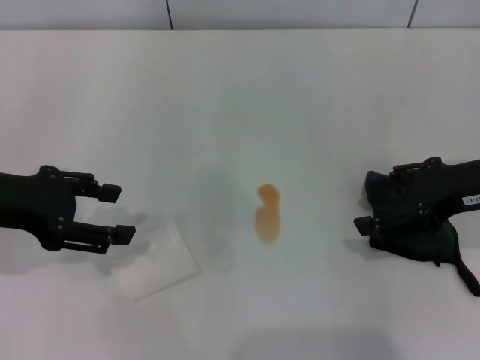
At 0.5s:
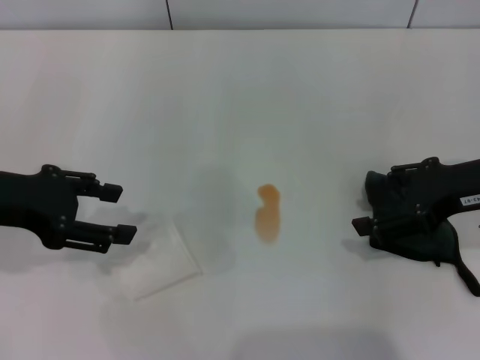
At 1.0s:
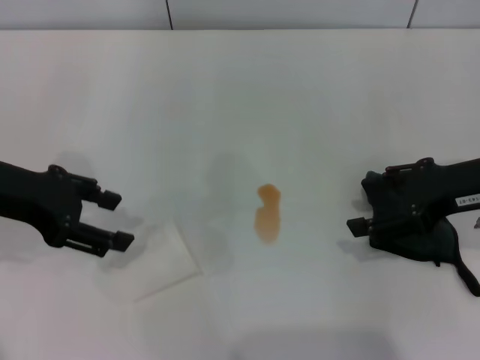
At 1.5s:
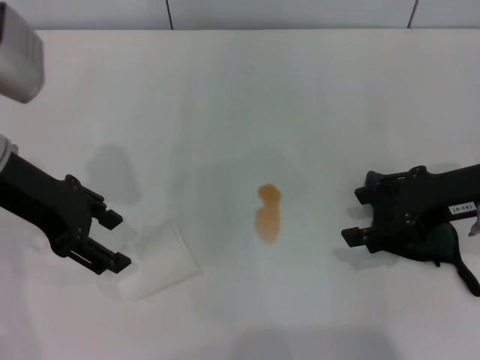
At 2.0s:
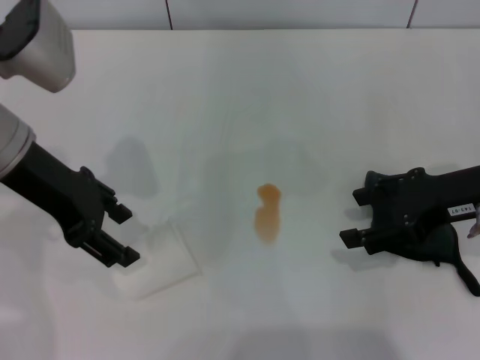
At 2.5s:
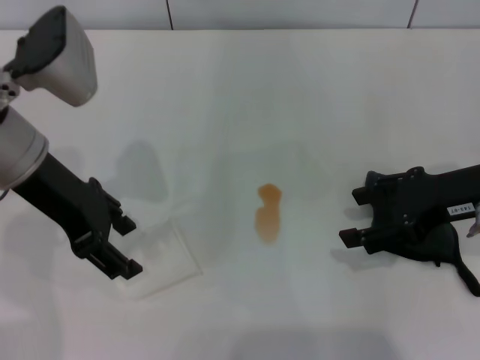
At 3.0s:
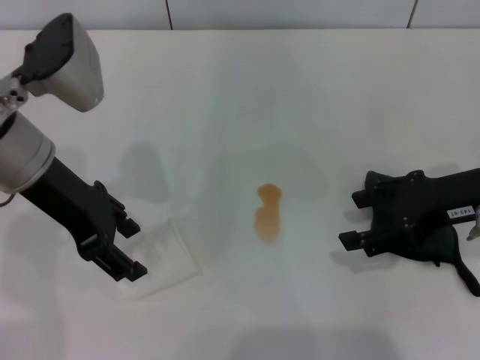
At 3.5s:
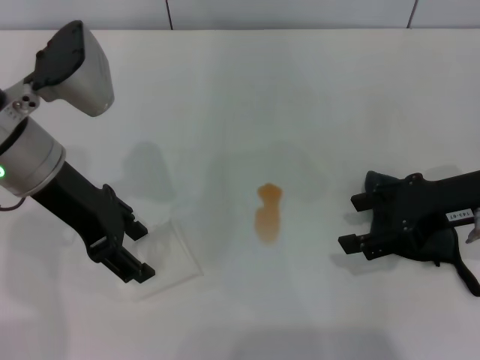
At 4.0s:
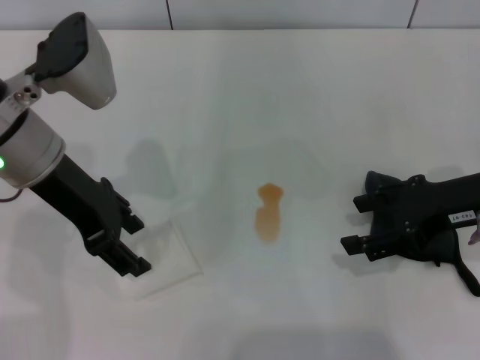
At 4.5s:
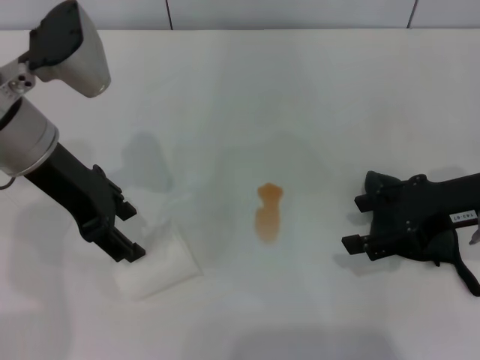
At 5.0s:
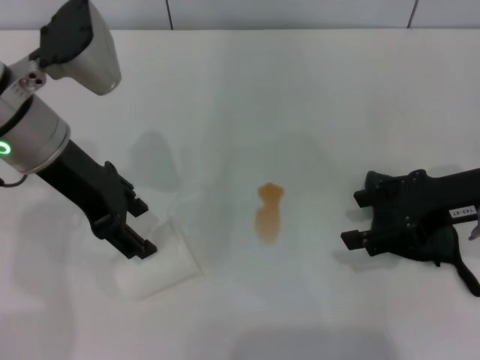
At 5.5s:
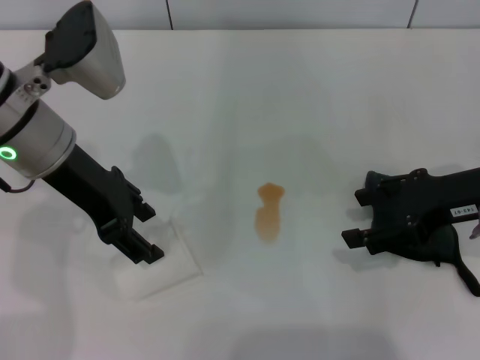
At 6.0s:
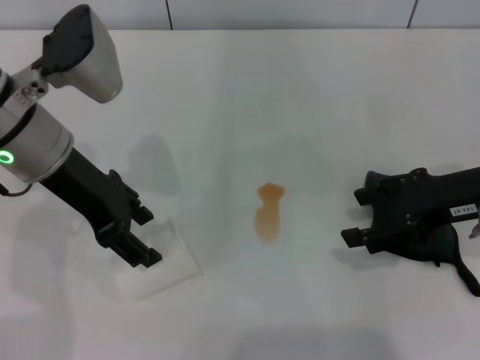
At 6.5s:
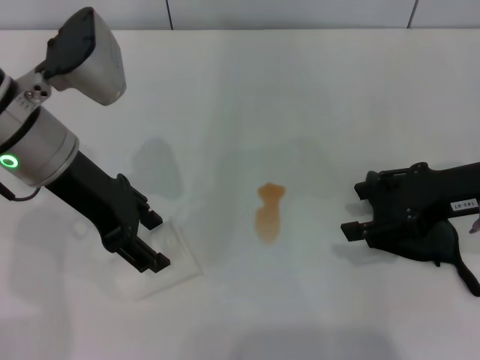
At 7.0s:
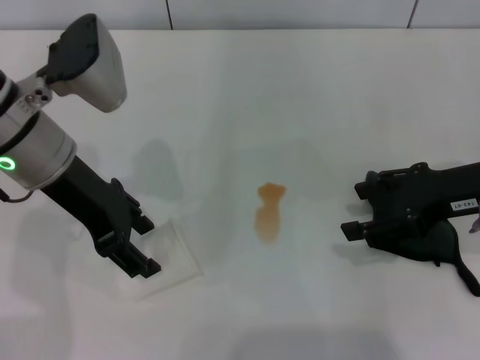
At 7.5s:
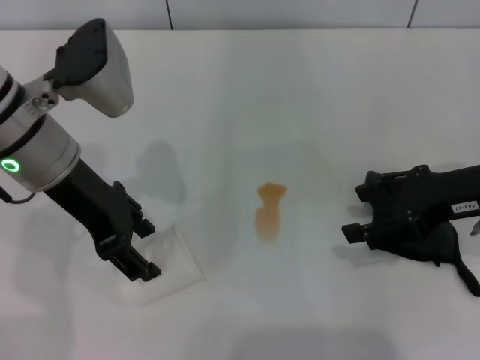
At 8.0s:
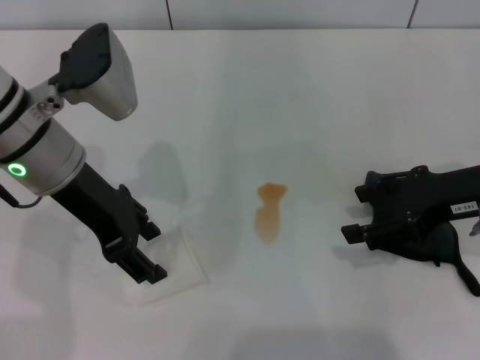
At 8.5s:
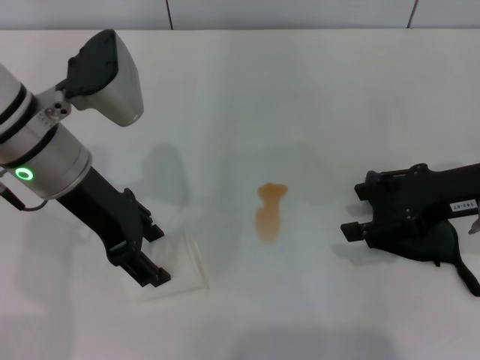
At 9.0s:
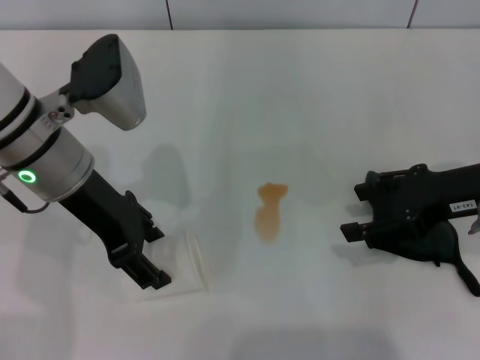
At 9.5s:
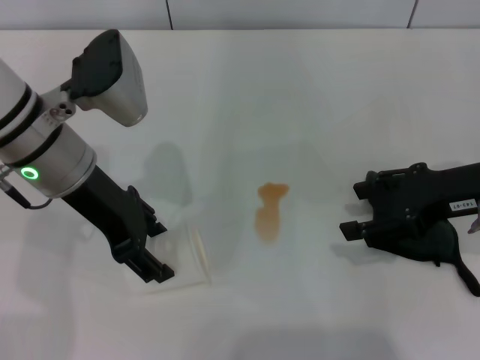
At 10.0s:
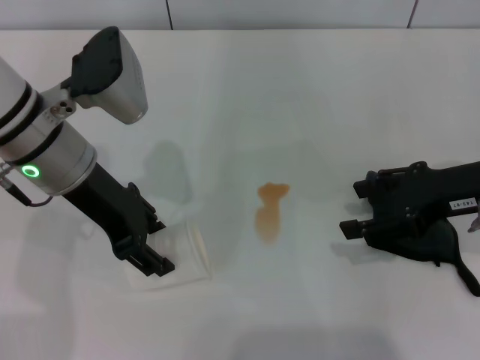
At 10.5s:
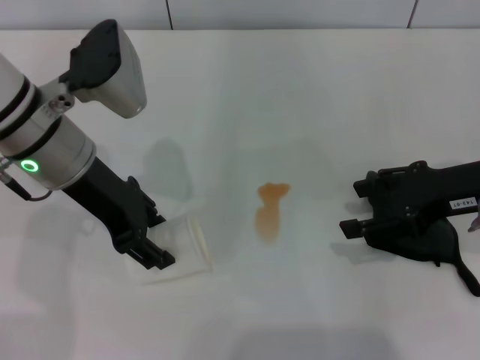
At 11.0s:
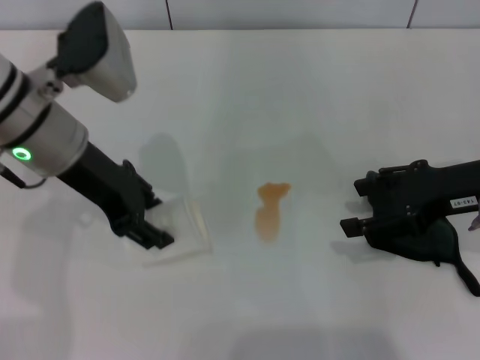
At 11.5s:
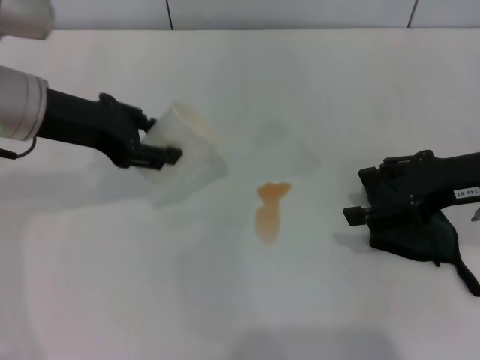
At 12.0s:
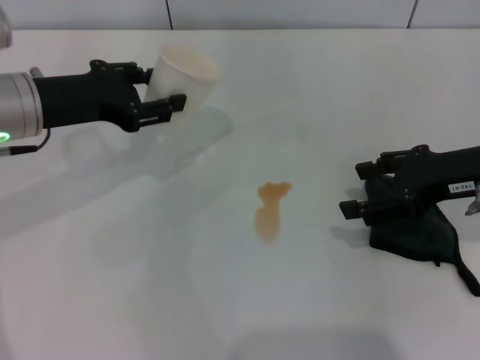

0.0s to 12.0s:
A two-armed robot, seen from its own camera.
Step, 0.0s to 10.0s: Grasp the paper cup with the left gripper.
0.0s to 2.0s: The left gripper goes roughly 5 cm to the right.
2.0s to 4.0s: The grippers stay close to where they were, moving slightly.
4.0s to 6.0s: Both grippers stay put.
6.0s to 8.0s: The two grippers keep their place.
8.0s to 10.0s: Both grippers stay about where they are.
10.0s to 12.0s: The left gripper shifts approximately 5 cm to the left.

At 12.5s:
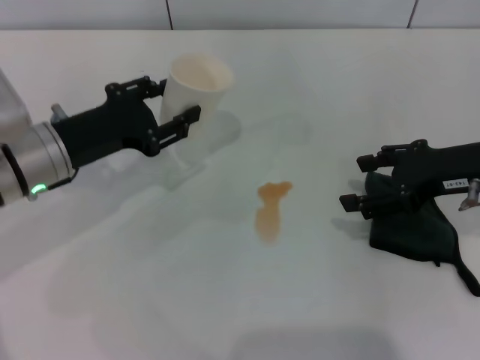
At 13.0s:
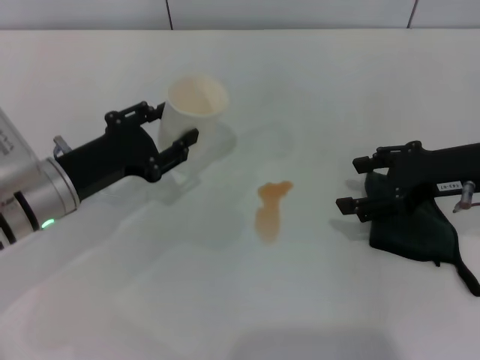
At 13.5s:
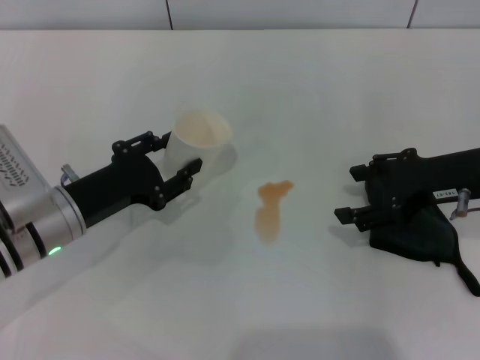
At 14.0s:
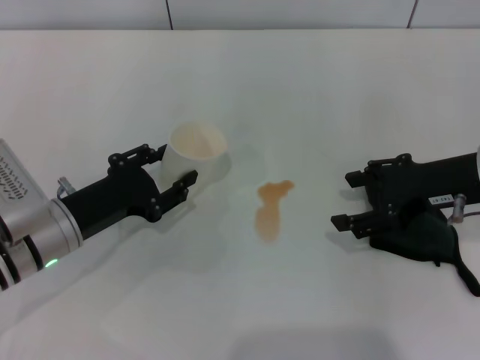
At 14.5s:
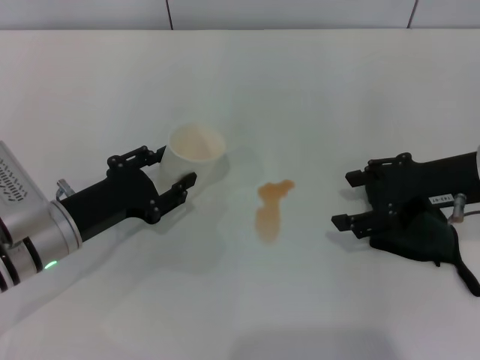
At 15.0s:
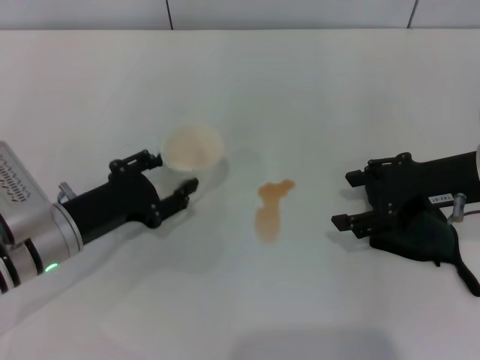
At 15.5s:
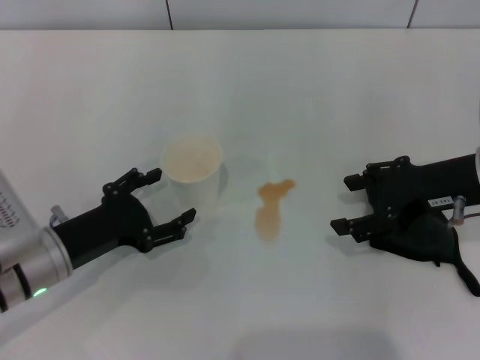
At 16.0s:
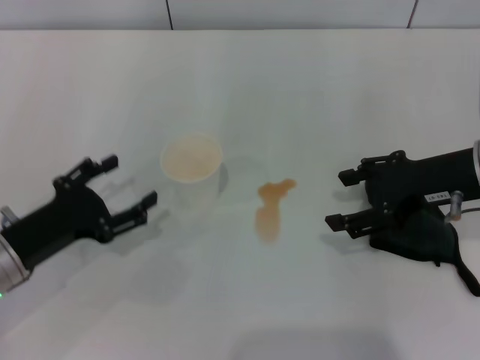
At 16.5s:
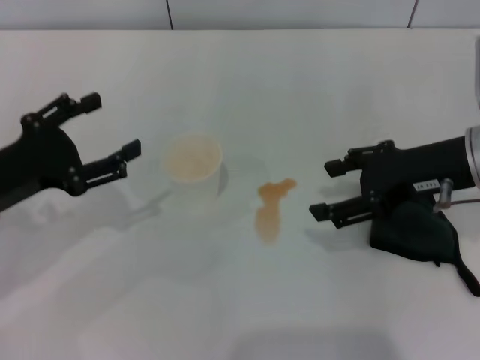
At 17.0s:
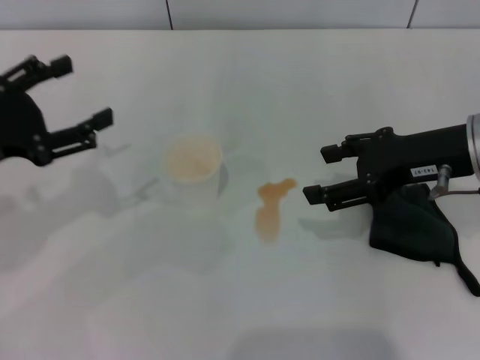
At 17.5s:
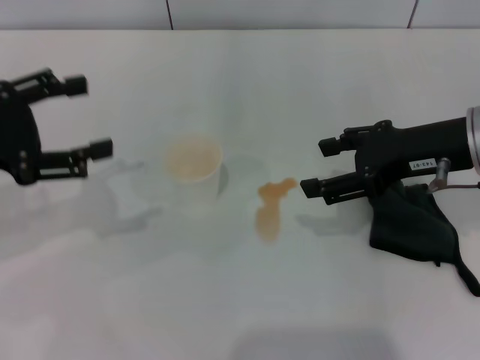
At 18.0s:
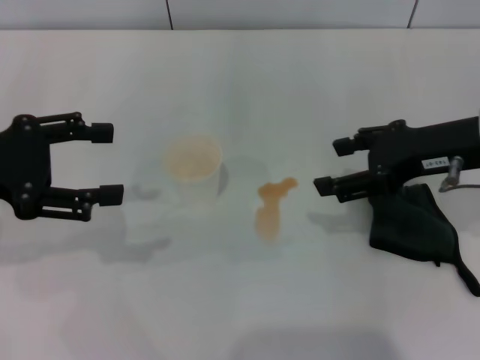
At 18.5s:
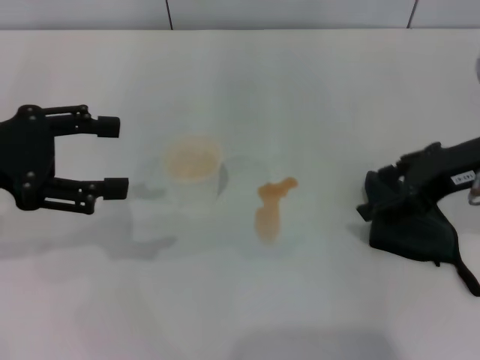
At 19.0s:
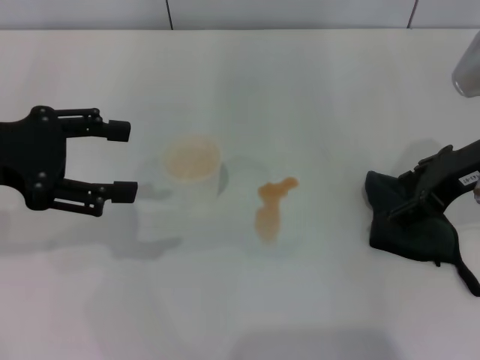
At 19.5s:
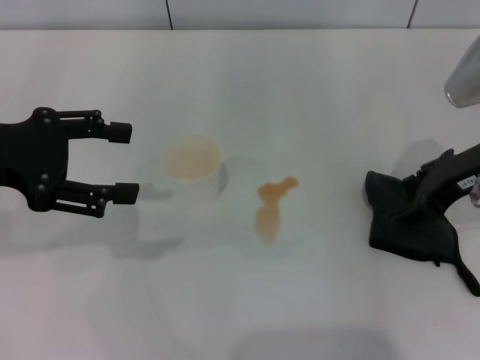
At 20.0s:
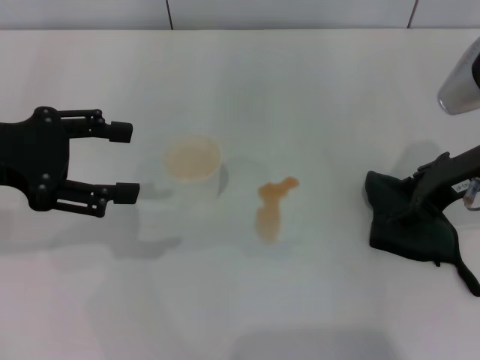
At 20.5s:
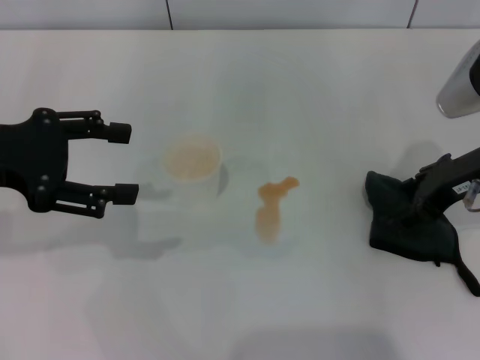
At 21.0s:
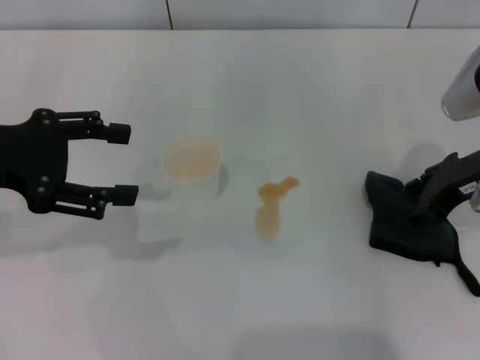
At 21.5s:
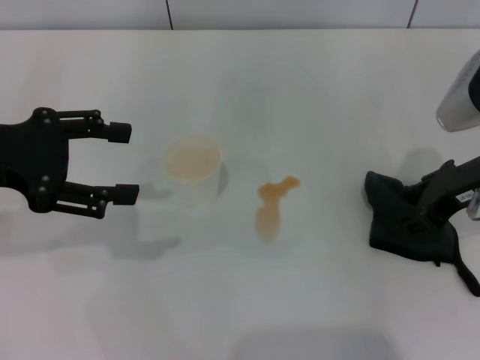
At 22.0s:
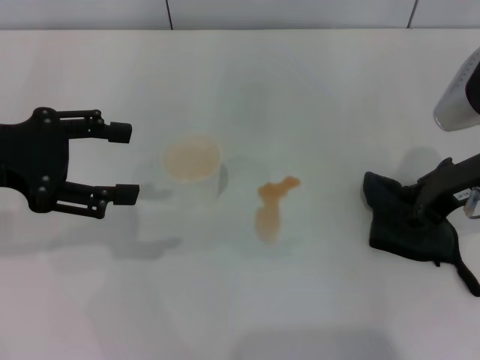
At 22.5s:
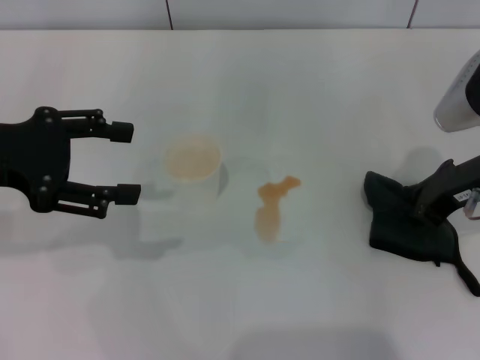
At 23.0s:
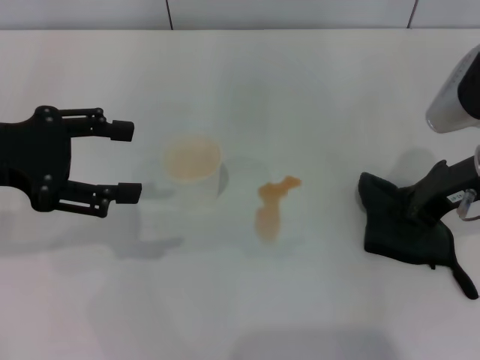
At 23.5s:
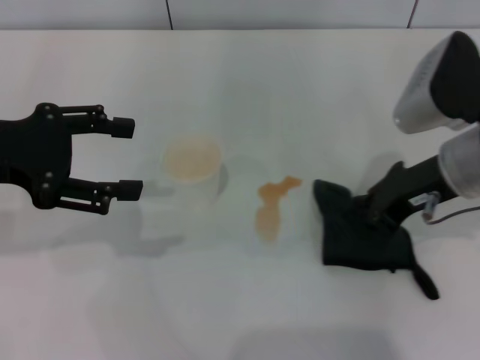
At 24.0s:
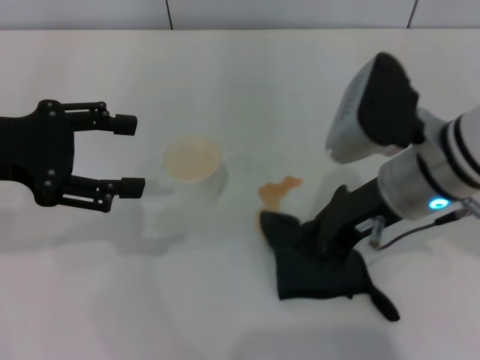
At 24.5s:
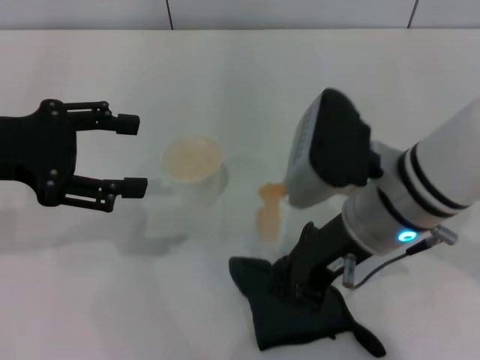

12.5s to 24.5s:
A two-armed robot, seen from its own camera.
Step, 12.5s to 15.5s: Stand the paper cup upright with the left gripper.
Step, 16.0s to 22.5s: Grasp the rag with the right gripper.
12.5s to 14.5s: The left gripper is displaced downward and backward by about 10 cm.
14.5s to 16.5s: The left gripper is displaced upward and to the left by roughly 10 cm, and opens.
16.5s to 18.5s: The left gripper is displaced upward by approximately 10 cm.
18.5s to 20.5s: The grippers move only a little.
20.5s to 22.5s: The right gripper closes its fingers.
22.5s to 24.5s: The right gripper moves to the left, some 15 cm.

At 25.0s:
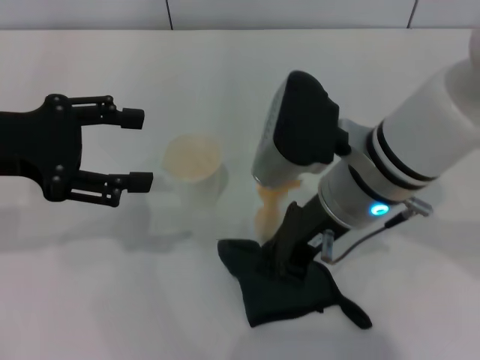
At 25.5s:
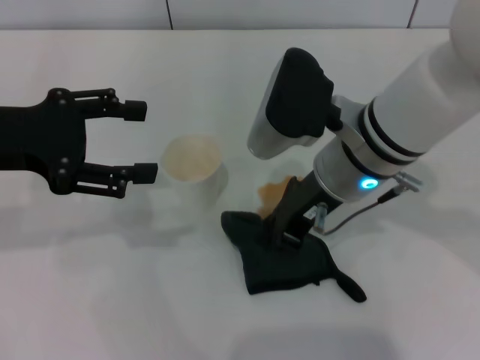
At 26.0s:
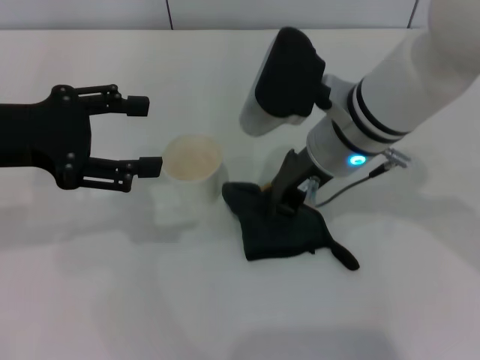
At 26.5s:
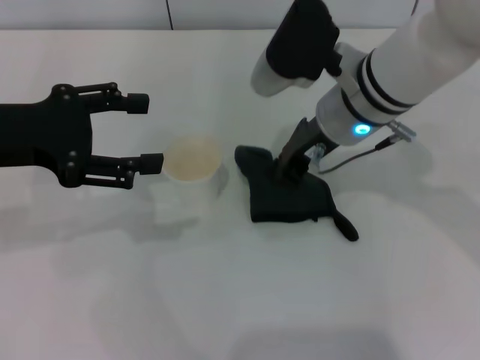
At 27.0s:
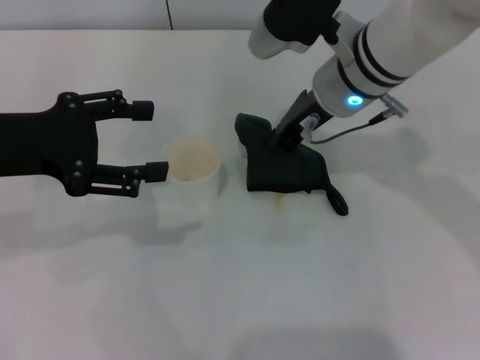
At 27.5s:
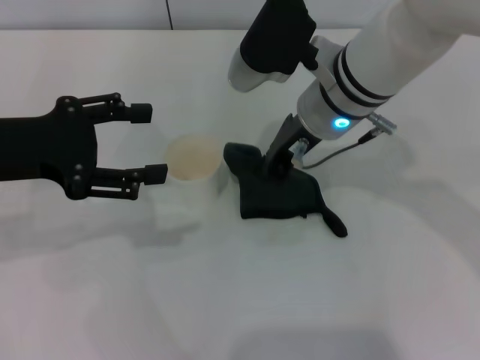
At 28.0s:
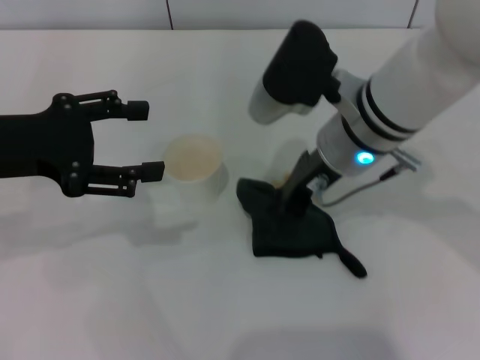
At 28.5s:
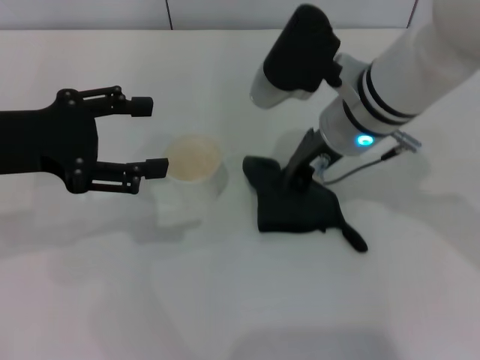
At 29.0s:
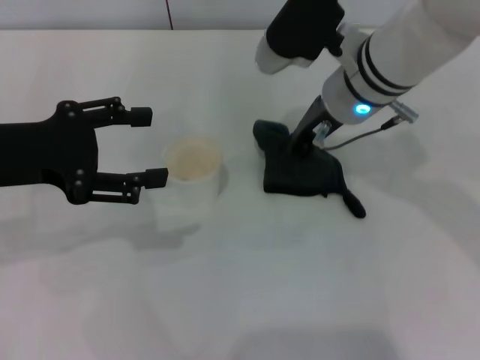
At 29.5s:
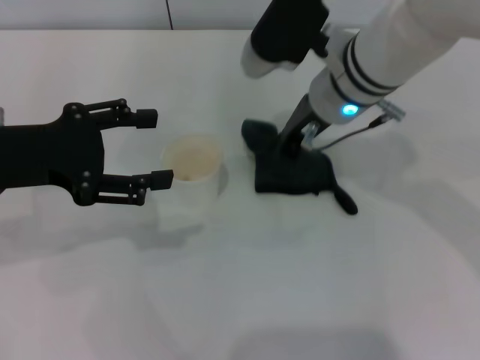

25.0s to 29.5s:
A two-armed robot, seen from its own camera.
25.0s to 27.0s: The right gripper moves forward, some 10 cm.
27.0s to 29.5s: The grippers move only a little.
